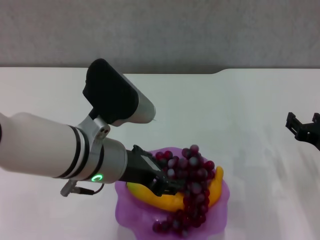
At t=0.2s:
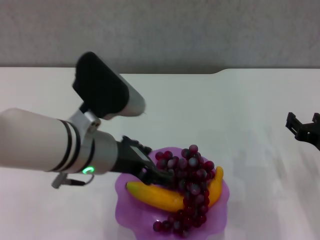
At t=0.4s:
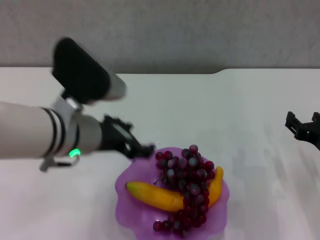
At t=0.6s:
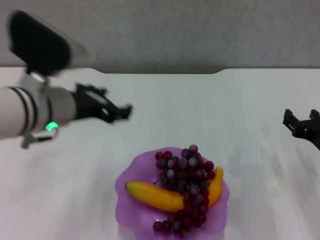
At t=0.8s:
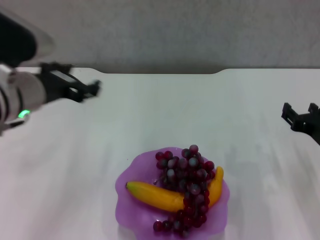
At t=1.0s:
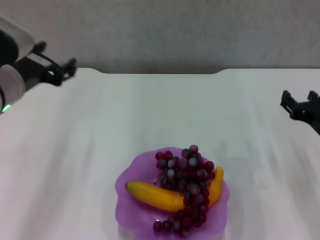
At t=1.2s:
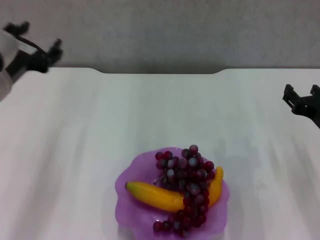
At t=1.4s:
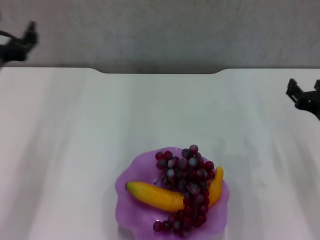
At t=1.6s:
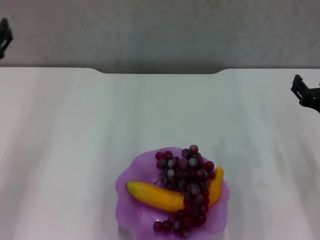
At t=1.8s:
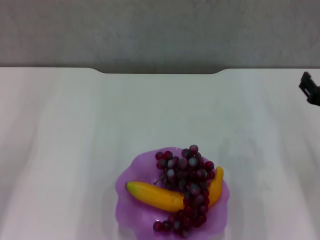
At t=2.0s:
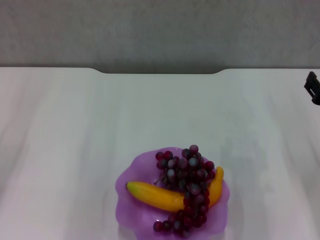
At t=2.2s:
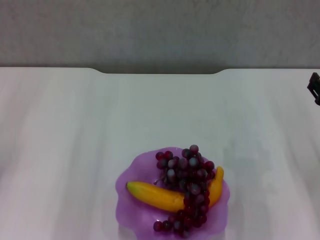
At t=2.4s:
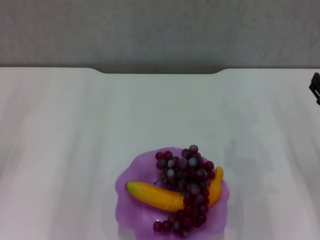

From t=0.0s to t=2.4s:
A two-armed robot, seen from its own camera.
From t=0.0s to t=1.2s: The left gripper travels to the left by about 15 cm, and opens.
From t=1.2s to t=2.4s: The left gripper heads to the left, covering about 10 cm.
